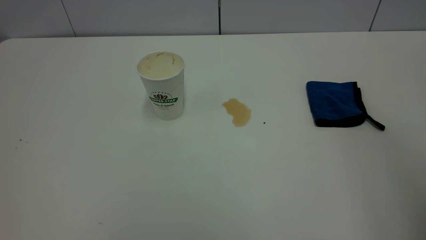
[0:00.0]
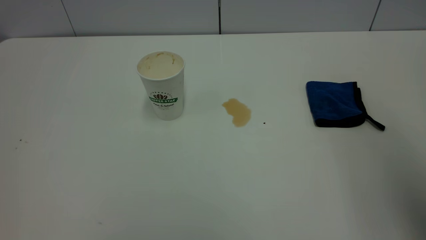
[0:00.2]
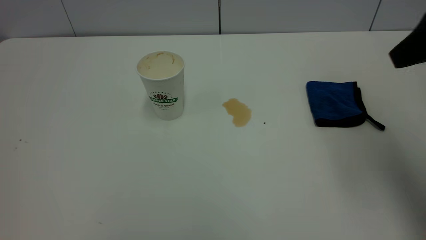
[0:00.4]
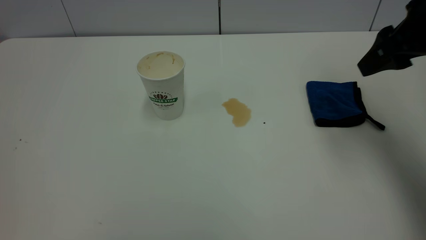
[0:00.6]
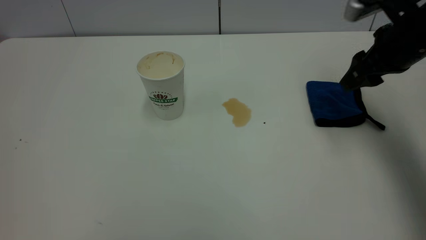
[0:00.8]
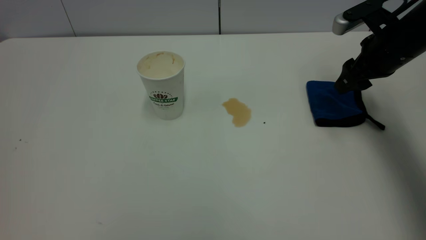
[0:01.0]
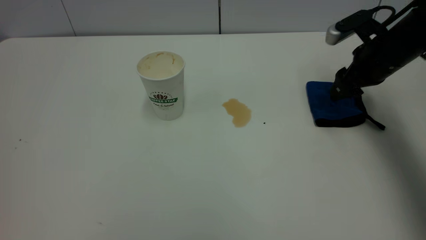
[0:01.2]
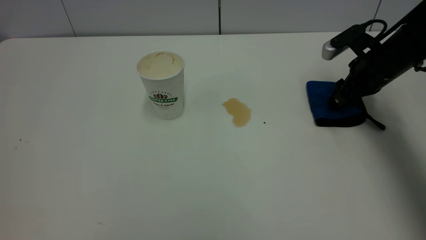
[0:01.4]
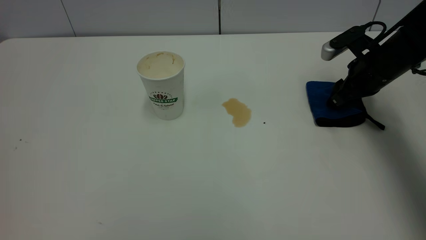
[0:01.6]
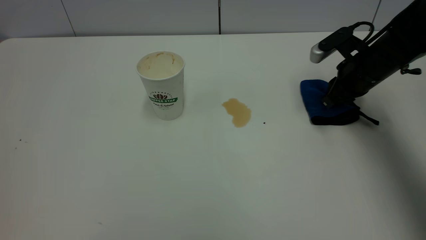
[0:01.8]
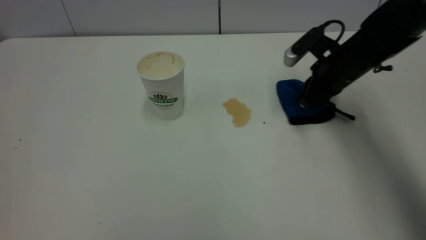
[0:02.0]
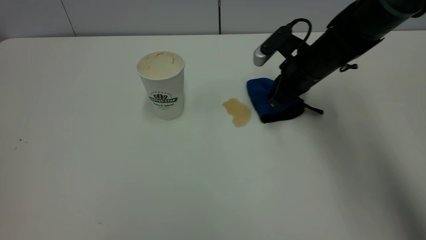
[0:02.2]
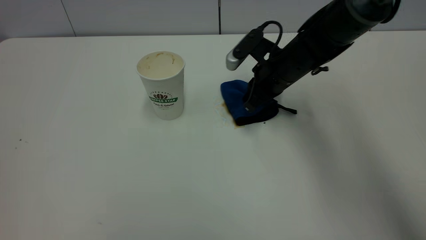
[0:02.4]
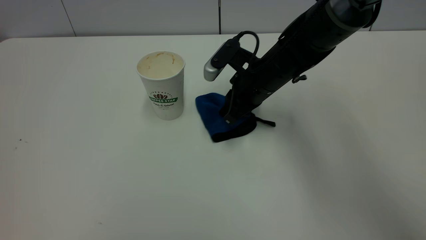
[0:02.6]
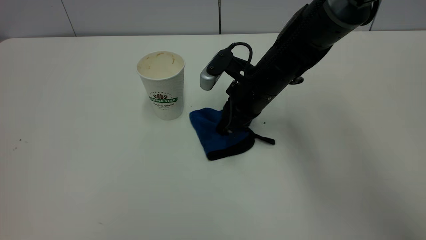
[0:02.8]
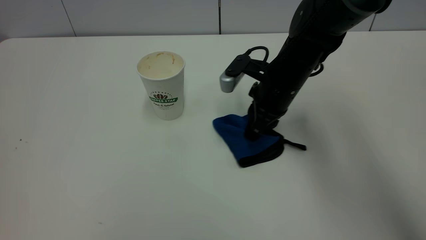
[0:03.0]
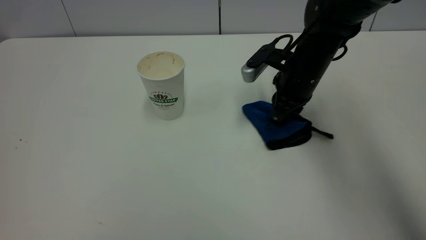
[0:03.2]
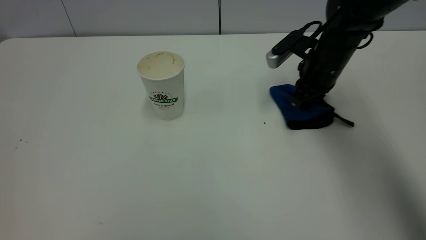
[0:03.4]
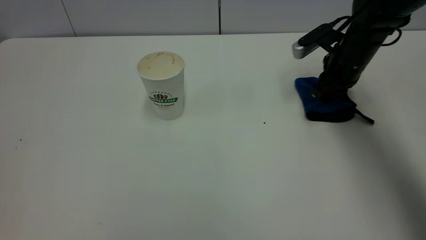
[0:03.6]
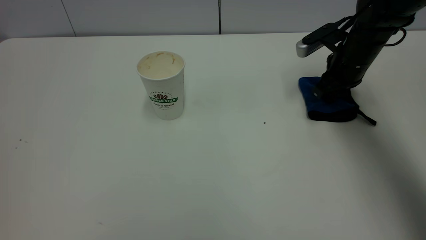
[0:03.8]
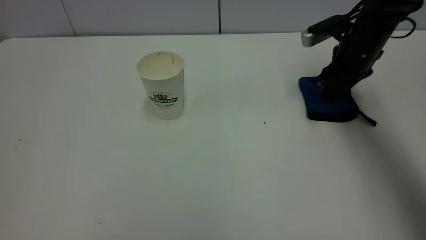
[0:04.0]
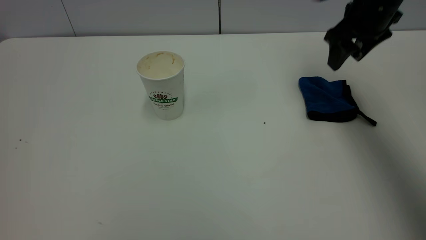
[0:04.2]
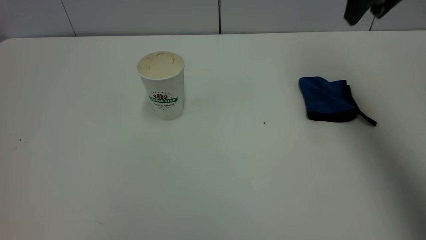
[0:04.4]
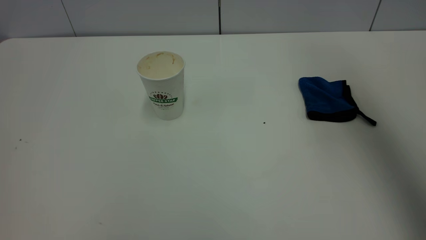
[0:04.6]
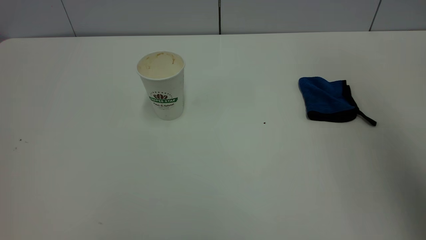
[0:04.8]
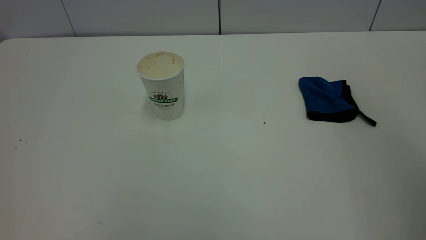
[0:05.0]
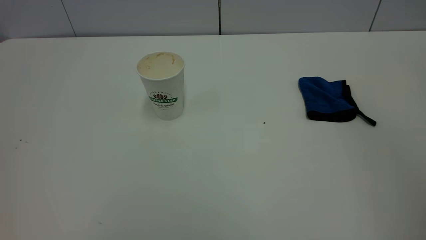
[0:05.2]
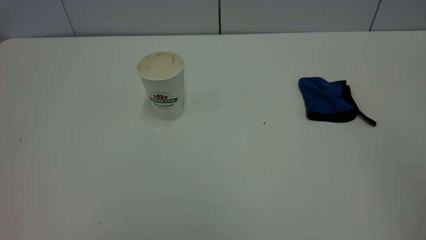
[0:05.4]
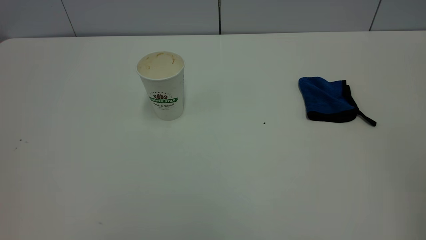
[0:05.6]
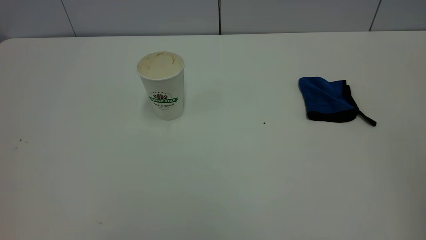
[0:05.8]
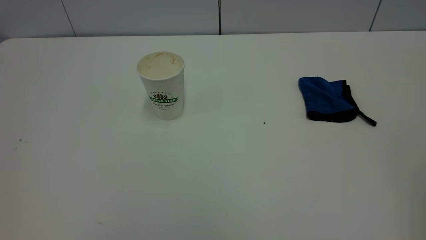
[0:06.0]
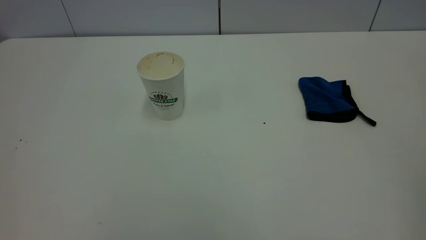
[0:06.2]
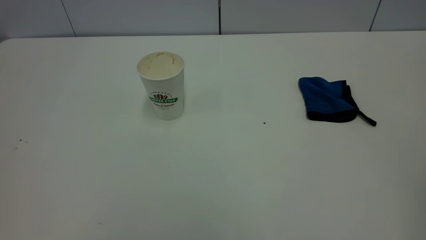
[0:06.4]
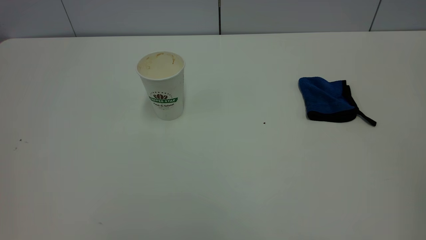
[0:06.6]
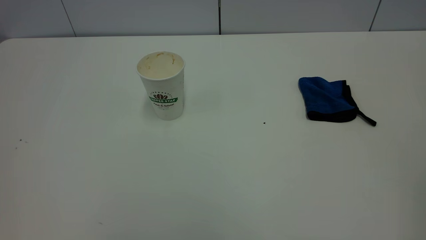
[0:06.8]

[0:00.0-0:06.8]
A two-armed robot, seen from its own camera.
Task of the whole recording: the left gripper pick up the fallen cup and place it upright, the right gripper grasp the blue rag and wipe the tea stain on the table, the right gripper put the blue rag back in its original position.
Step, 0:00.0 to 0:04.0: Wipe the stains off the table with a rag.
0:00.0 to 0:01.4: The right gripper goes roughly 40 cm forward and downward.
0:01.4 to 0:02.8: The right gripper heads to the left, covering approximately 20 cm, and closes up.
0:02.8 to 0:04.0: The right gripper is displaced to the right by roughly 15 cm, and opens up.
0:04.0 to 0:05.4: The right gripper moves backward and upward, about 50 cm.
